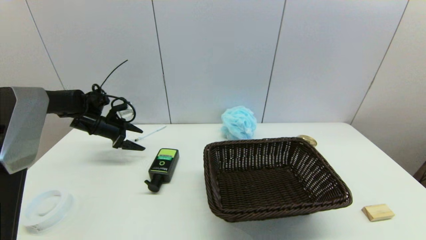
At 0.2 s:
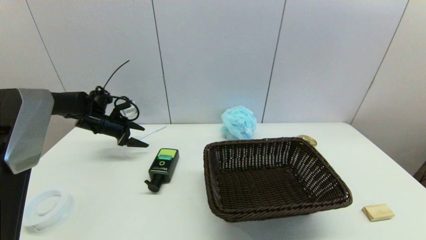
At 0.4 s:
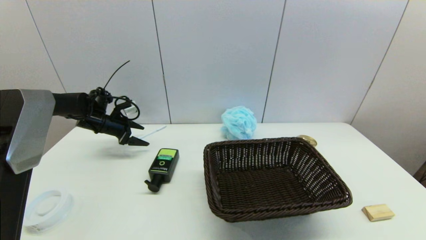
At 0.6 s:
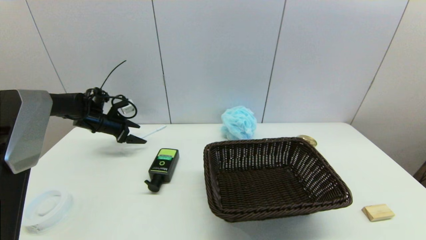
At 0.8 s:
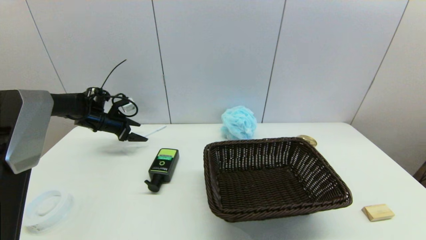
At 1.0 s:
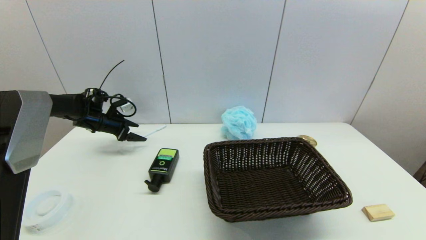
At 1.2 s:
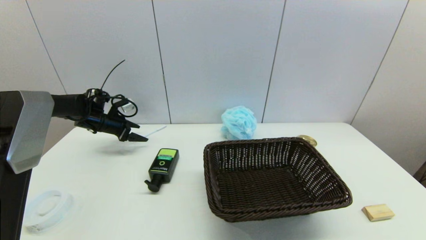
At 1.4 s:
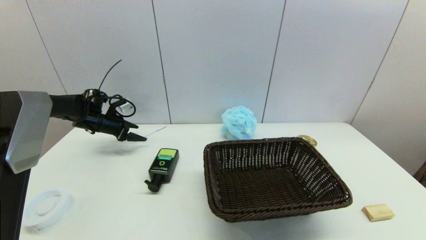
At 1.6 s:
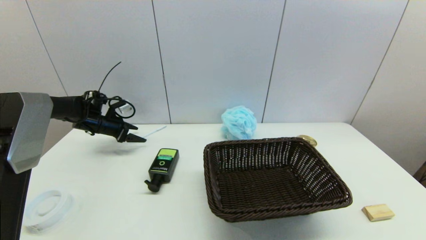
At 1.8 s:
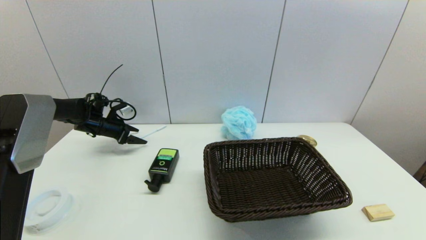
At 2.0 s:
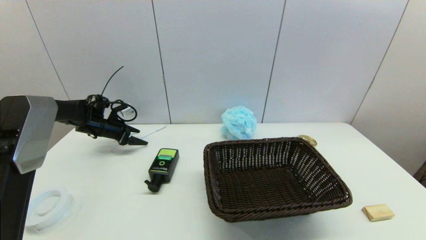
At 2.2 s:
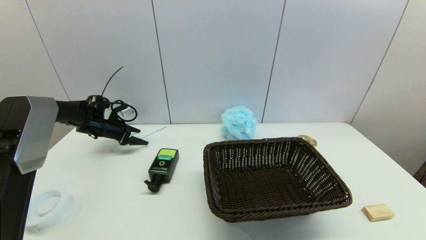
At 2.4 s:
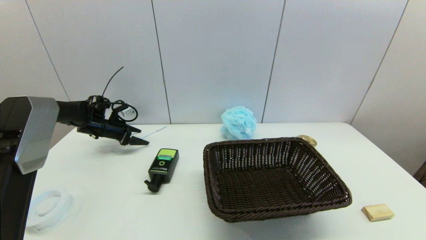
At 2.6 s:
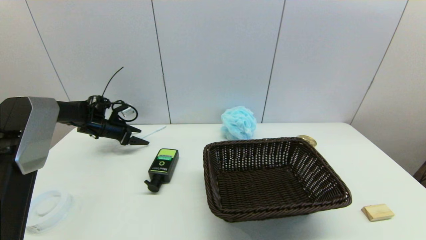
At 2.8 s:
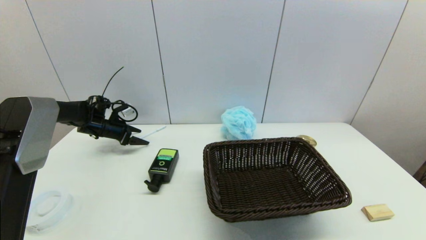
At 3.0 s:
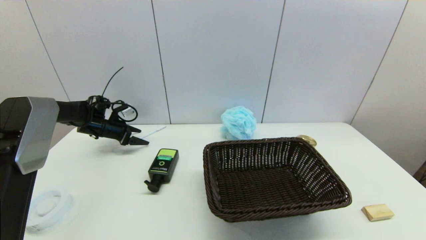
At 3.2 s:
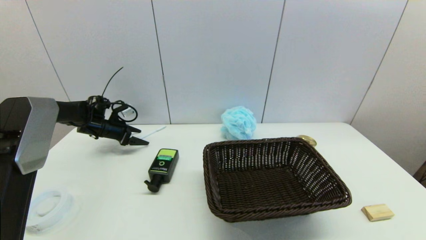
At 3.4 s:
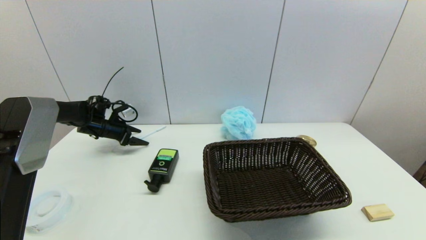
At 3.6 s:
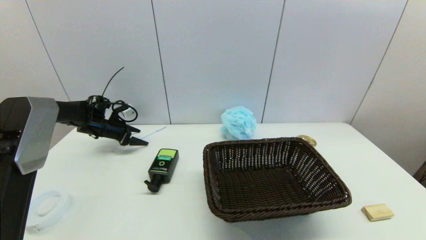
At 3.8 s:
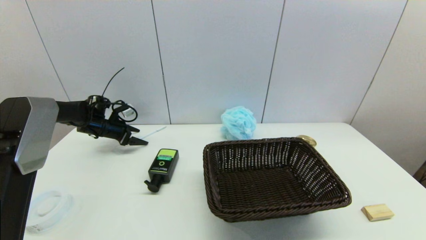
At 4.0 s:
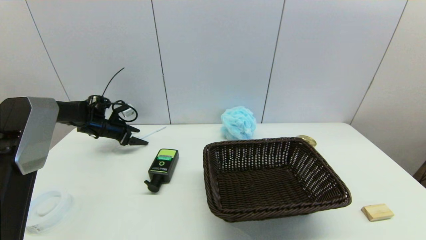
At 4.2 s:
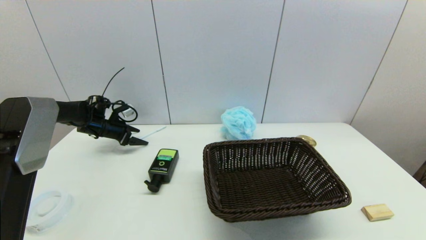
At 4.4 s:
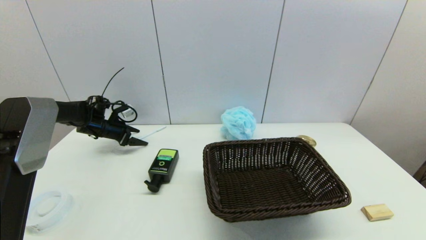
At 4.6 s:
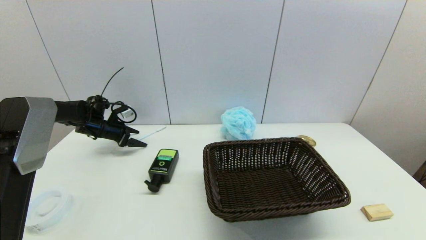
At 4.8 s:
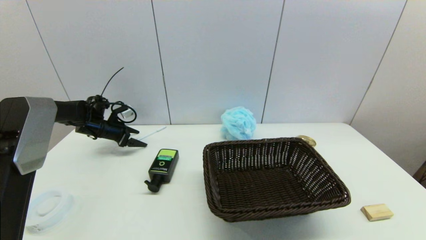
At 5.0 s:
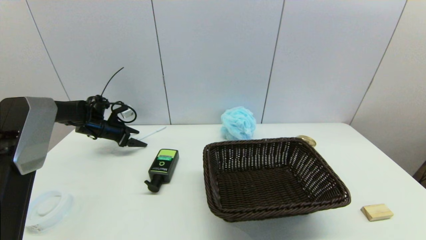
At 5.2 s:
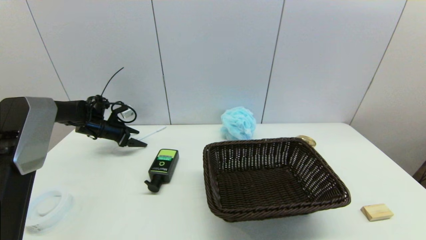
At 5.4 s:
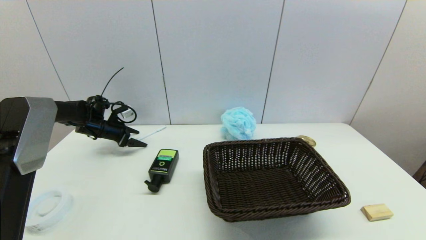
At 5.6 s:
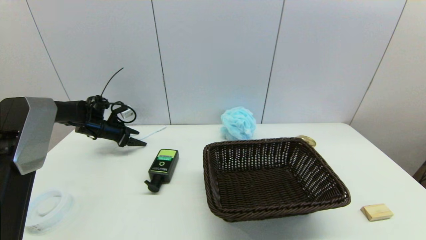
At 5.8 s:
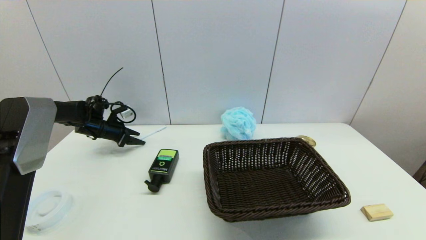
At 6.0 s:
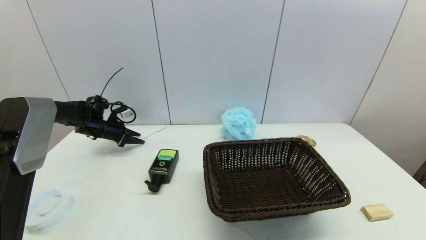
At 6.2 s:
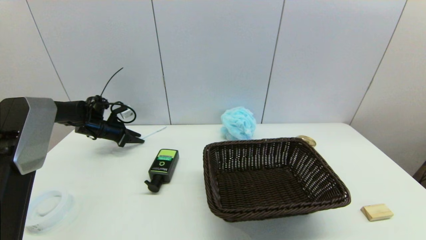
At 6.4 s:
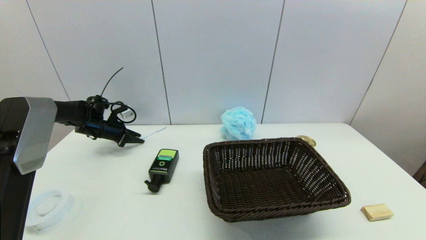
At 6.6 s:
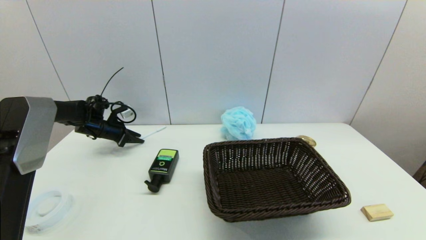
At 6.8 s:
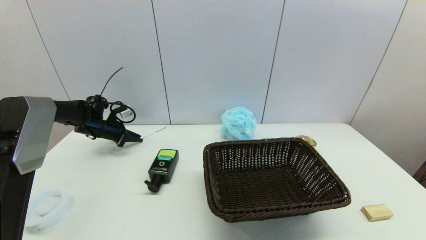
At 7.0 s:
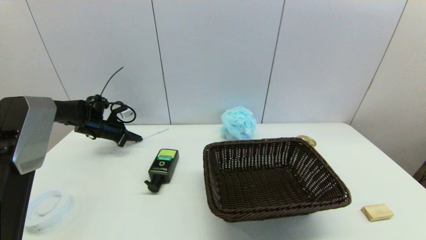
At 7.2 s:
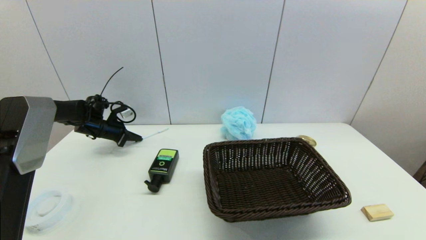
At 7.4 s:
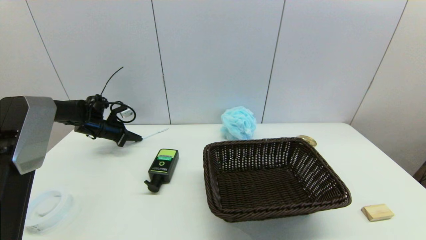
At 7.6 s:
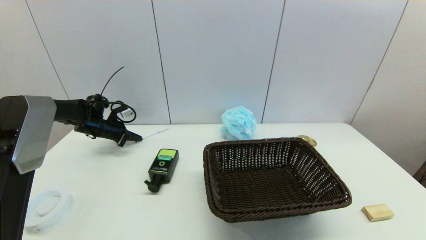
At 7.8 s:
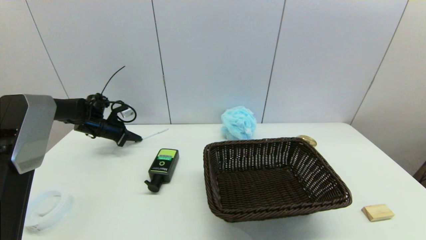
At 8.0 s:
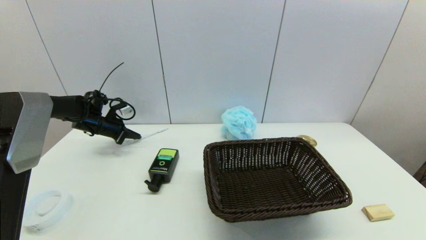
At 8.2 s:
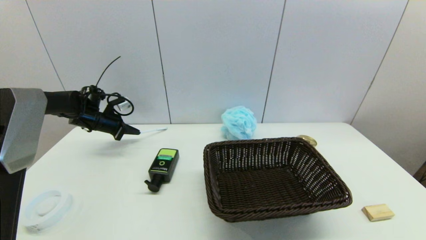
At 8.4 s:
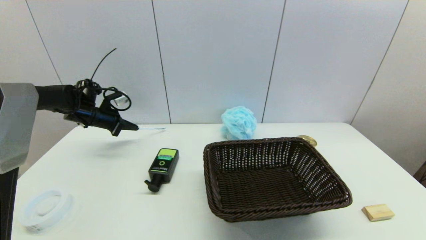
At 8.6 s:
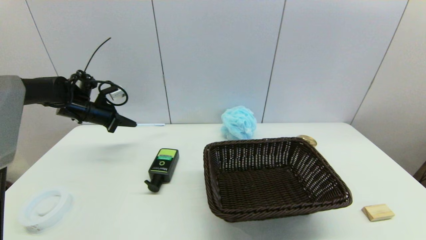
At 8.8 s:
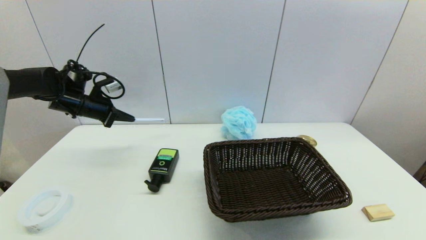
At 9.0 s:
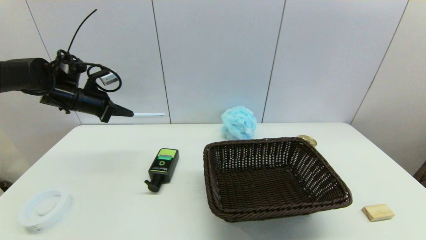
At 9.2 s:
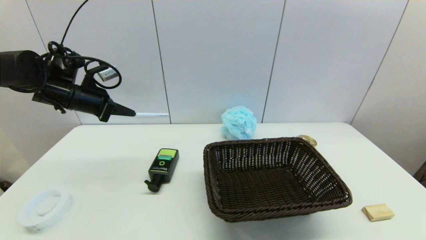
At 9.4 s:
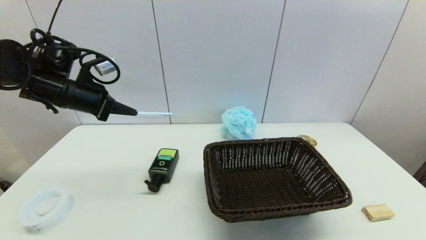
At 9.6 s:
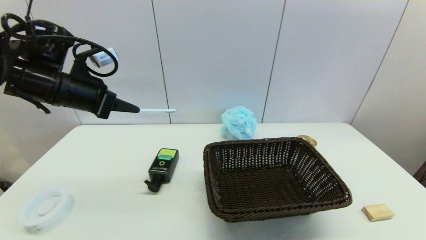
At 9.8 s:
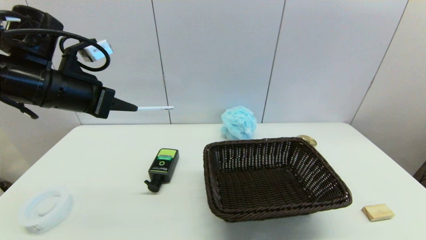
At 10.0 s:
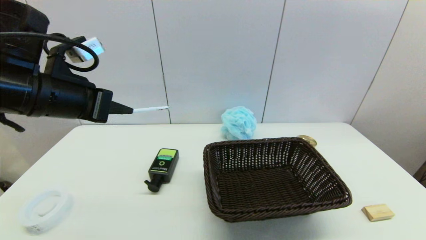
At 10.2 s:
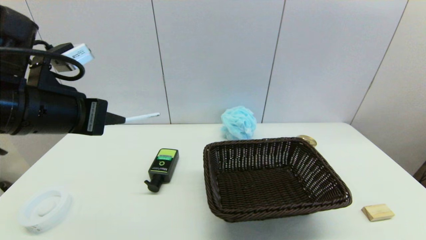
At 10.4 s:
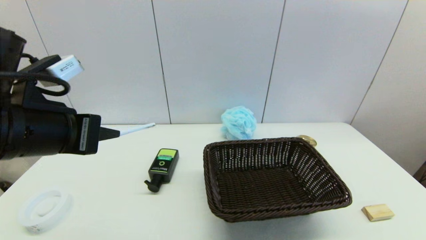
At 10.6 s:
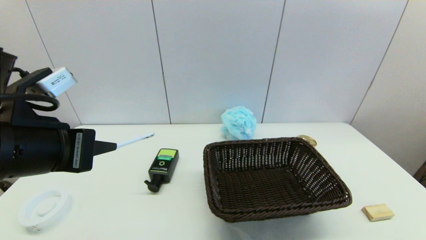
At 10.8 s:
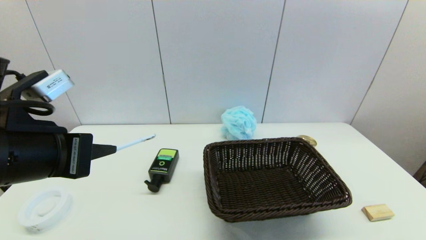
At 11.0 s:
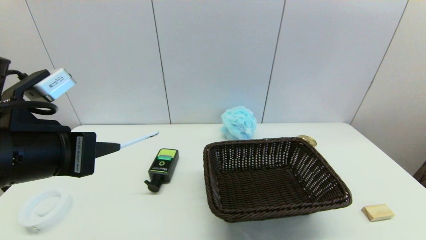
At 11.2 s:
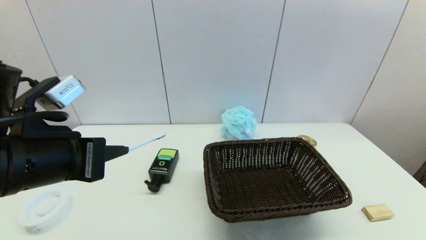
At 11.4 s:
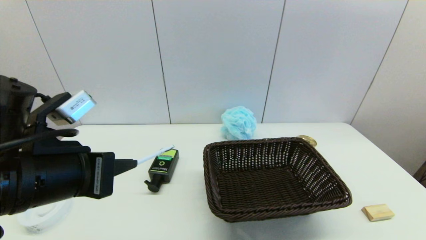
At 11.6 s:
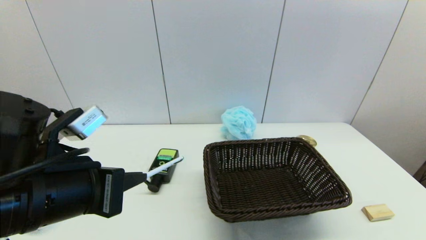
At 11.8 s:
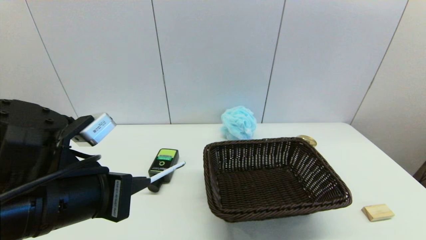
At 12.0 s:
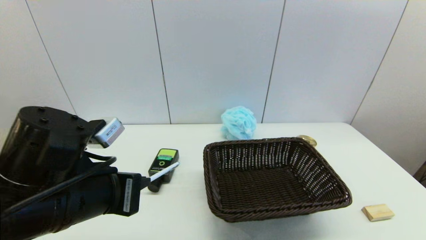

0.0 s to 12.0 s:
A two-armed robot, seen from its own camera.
Task of the whole recording: put the pen in the designated position.
Step, 0.0 to 7.6 s: Grasp the sign pen with left gripper.
0.0 to 3.0 s: The grippers stay close to where they were, moving slightly.
3.0 to 4.4 s: The two grippers keep their place.
4.4 to 6.0 s: The left gripper closes.
6.0 to 7.6 s: The left gripper closes up.
7.6 to 9.0 s: The left gripper heads upward and backward, covering roughly 15 cm.
9.0 to 10.4 s: The left gripper goes some 25 cm backward and to the right.
10.4 to 12.0 s: The left gripper moves downward, some 10 cm.

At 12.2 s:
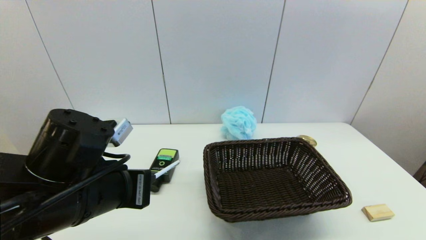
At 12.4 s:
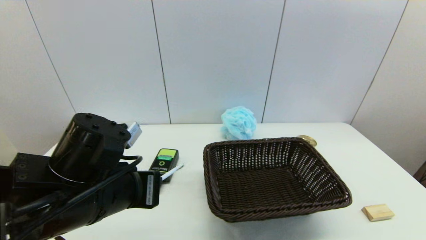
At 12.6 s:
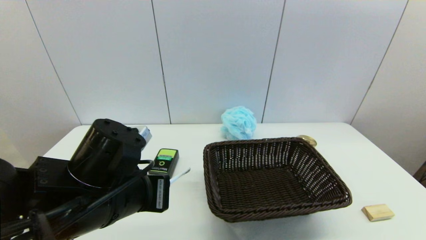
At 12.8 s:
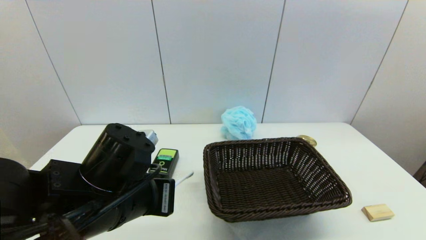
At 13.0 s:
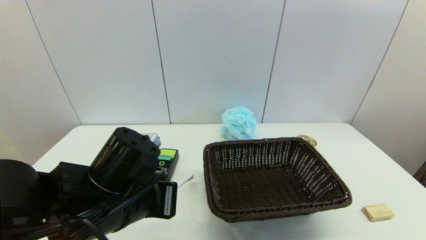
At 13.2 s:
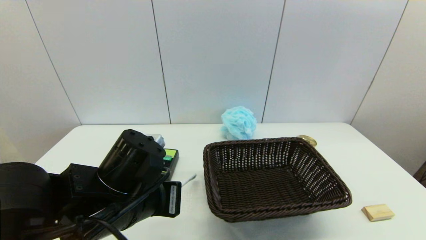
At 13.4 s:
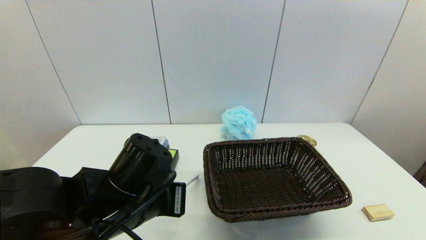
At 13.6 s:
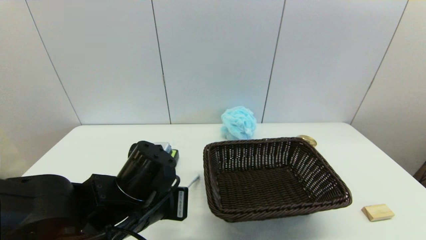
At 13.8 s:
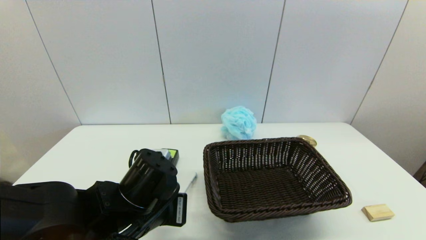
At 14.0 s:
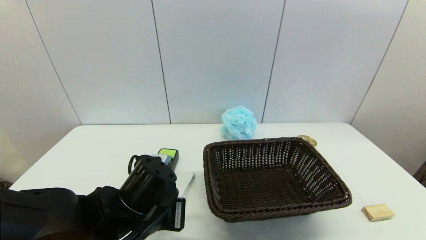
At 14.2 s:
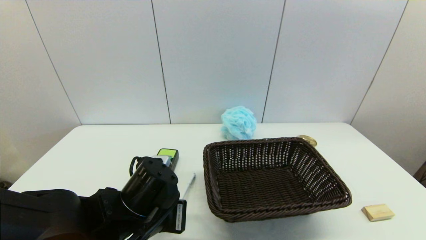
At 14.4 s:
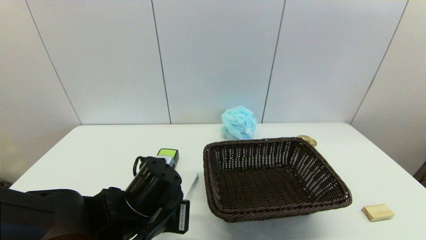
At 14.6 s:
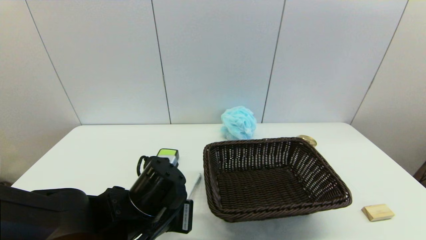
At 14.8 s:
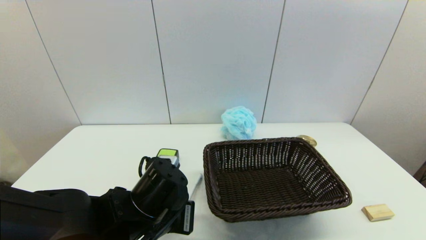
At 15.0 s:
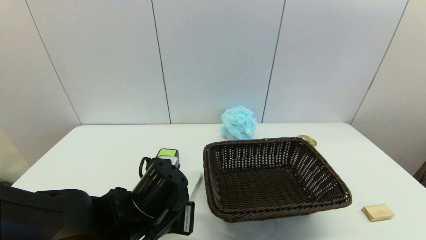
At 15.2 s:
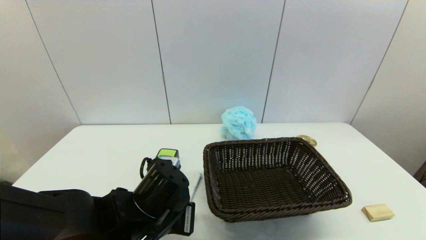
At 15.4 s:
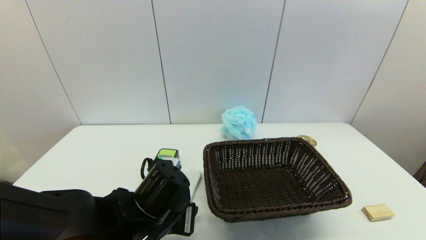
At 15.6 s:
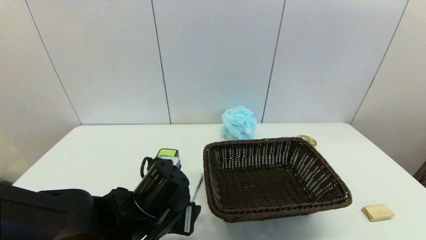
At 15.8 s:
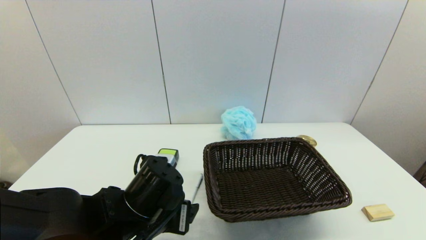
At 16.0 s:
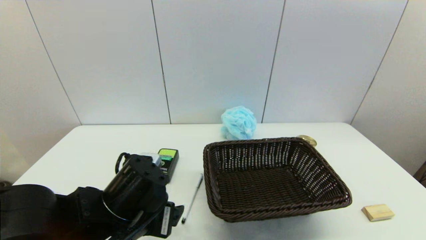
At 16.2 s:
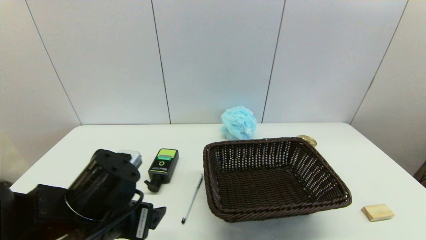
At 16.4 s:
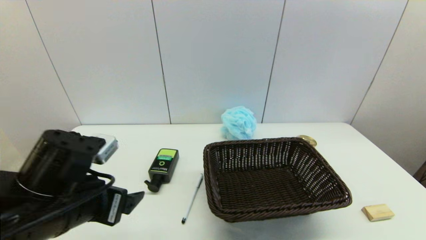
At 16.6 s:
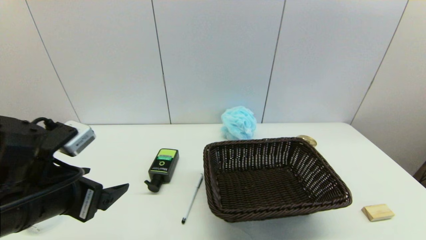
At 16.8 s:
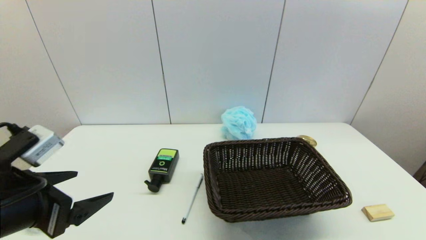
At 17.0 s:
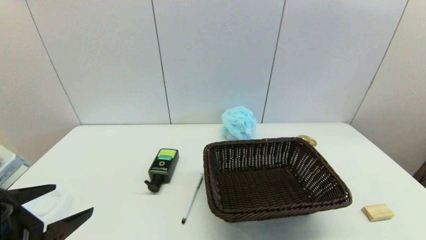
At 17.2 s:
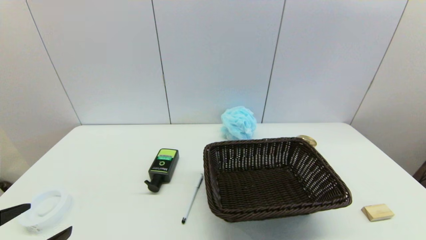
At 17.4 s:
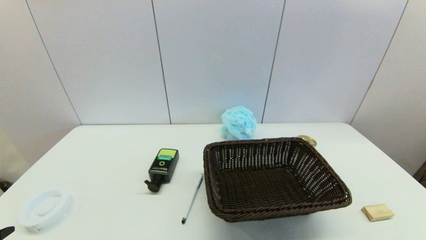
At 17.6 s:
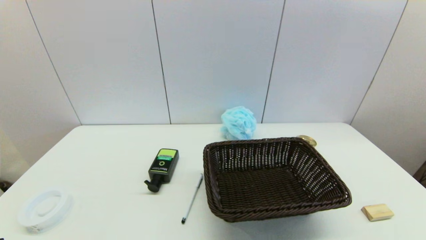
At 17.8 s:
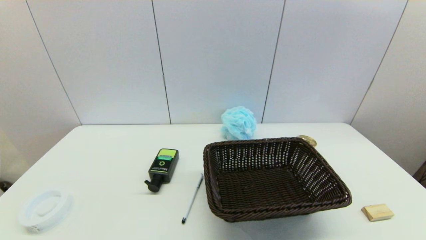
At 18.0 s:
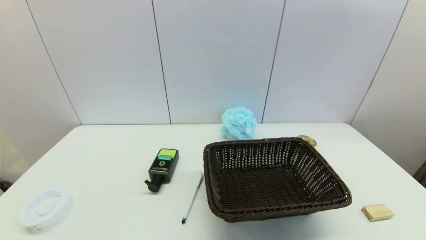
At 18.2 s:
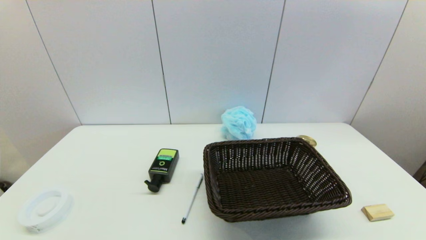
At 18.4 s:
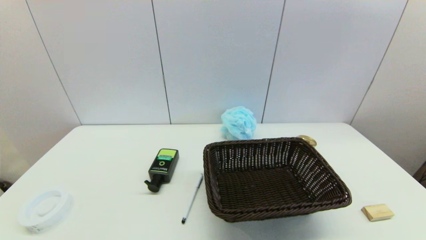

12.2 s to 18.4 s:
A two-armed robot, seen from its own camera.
Task of the whole recording: put the pen in the designated position.
Step, 12.2 to 15.8 s: Place the sign pen on the table with left gripper.
12.2 to 13.8 s: The left gripper is displaced downward by some 5 cm.
13.8 to 15.4 s: The left gripper opens its fingers.
15.4 to 16.8 s: The left gripper goes some 20 cm to the left and upward, and opens its fingers.
16.8 to 18.4 s: The left gripper travels backward and downward by about 15 cm.
